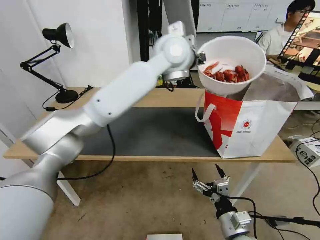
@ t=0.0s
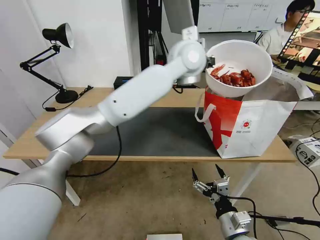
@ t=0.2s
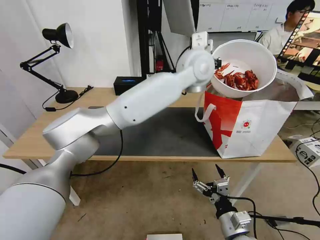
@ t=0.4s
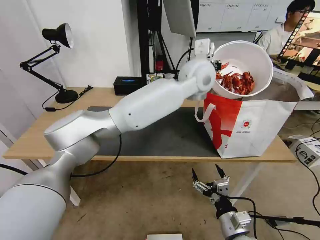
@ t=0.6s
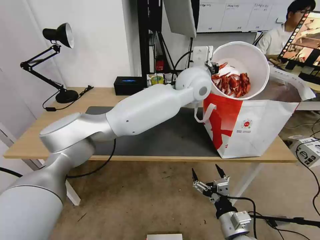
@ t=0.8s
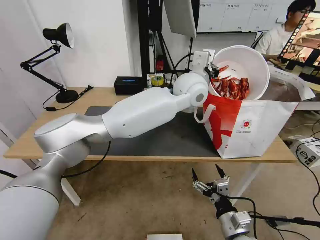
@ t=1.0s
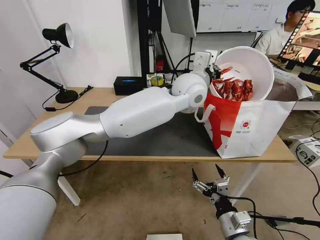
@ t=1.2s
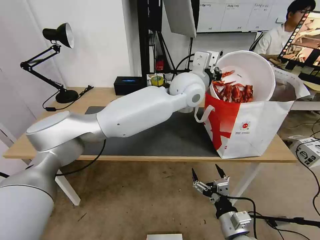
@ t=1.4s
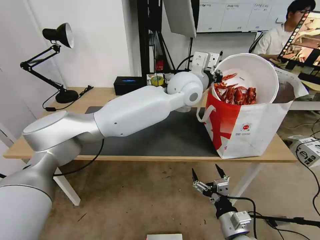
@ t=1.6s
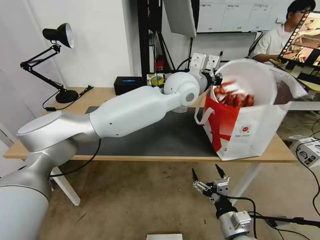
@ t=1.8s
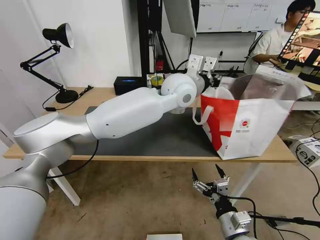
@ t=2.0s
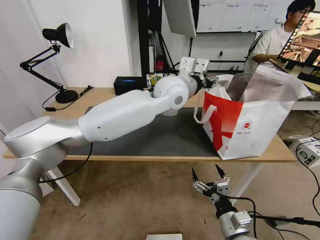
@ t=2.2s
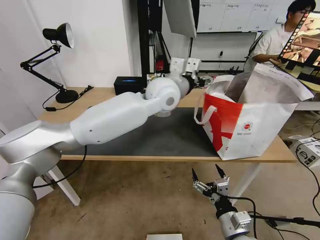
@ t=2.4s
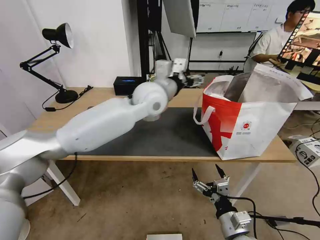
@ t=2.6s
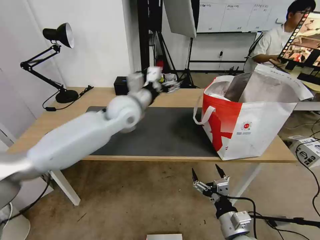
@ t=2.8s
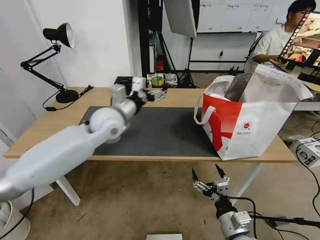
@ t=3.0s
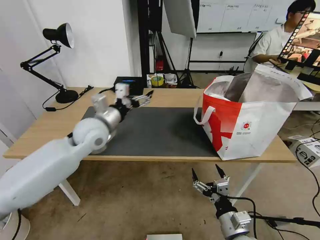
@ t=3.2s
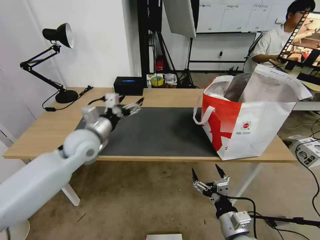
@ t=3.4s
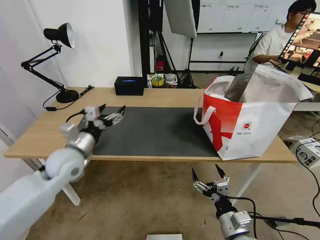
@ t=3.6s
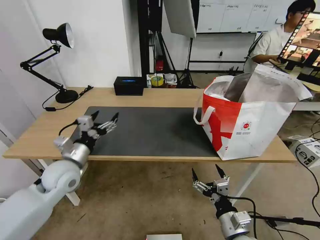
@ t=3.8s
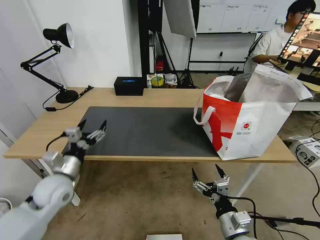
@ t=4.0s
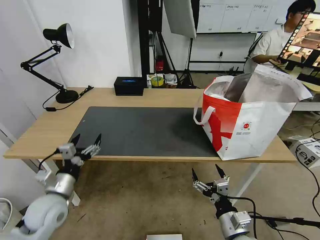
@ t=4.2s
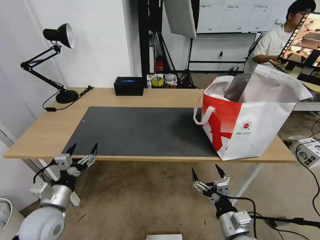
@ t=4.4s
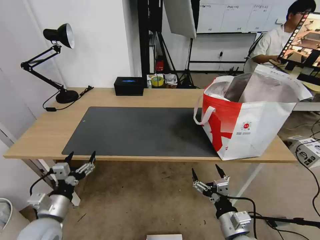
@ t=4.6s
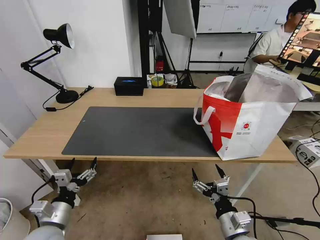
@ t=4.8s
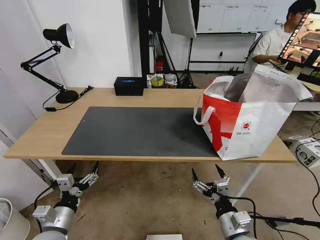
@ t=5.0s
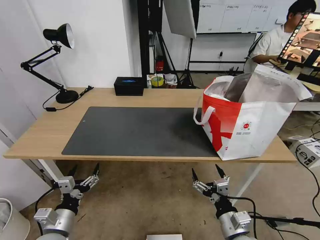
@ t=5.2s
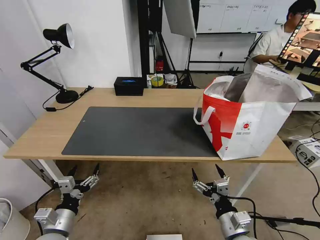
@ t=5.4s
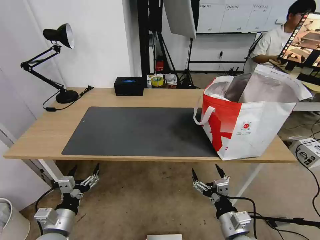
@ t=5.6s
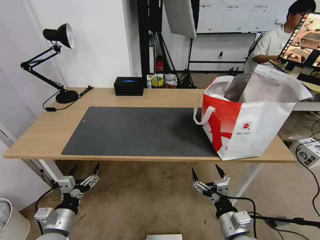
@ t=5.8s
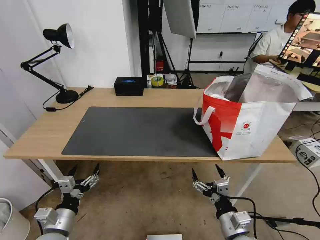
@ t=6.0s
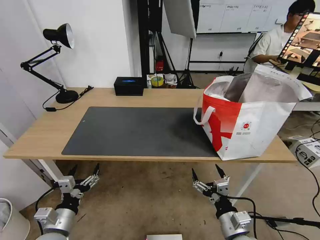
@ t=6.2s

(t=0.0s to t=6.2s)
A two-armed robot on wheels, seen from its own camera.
Task of the whole recording: Pick up the trash from the table and place it into the takeout bag.
t=0.0s - t=1.6s: The left gripper is displaced downward and to the right by about 10 cm.
t=1.6s - t=3.2s: The left gripper shifts about 25 cm to the left, and opens up.
t=3.2s - t=4.6s: The left gripper goes approximately 30 cm backward, downward and to the left.
t=4.6s - t=6.2s: The grippers move only a little.
